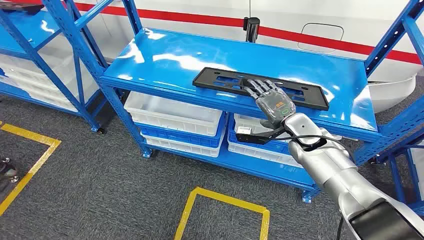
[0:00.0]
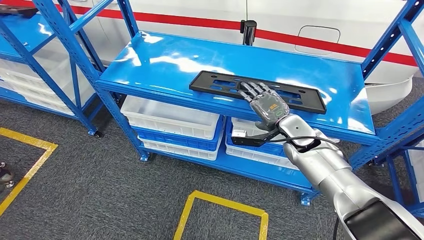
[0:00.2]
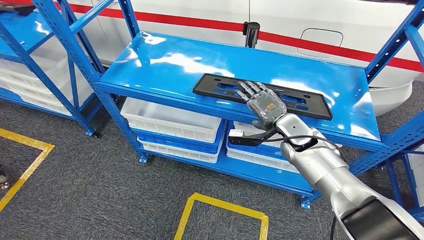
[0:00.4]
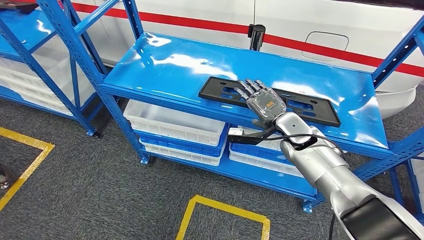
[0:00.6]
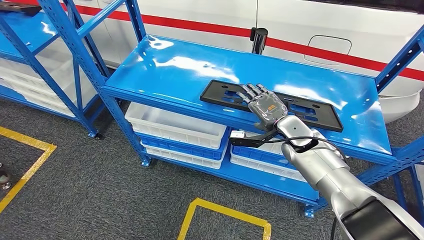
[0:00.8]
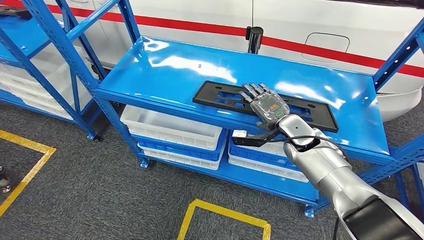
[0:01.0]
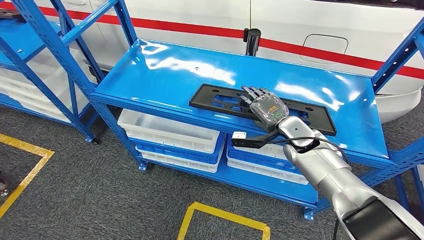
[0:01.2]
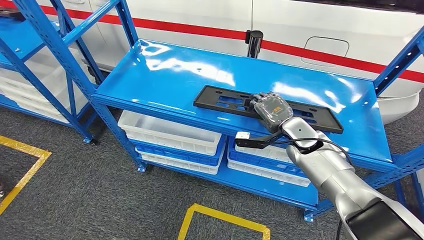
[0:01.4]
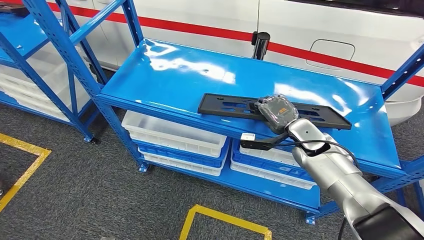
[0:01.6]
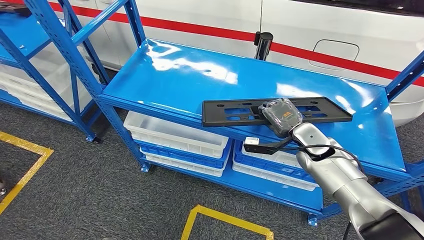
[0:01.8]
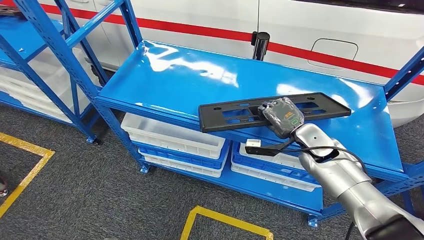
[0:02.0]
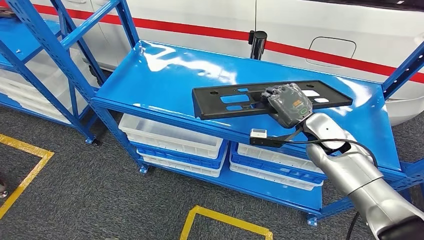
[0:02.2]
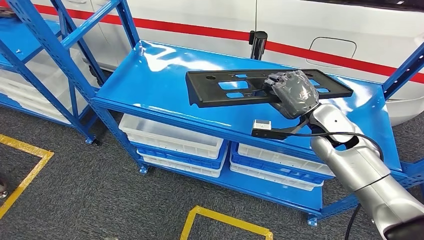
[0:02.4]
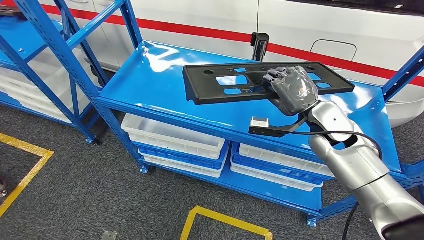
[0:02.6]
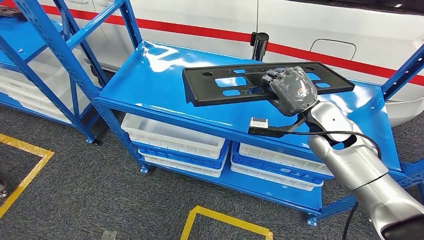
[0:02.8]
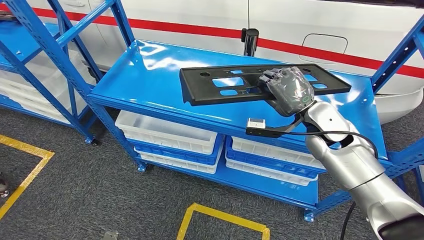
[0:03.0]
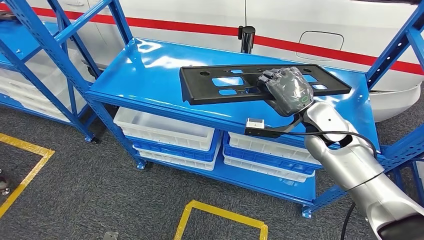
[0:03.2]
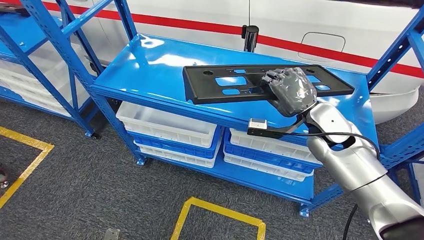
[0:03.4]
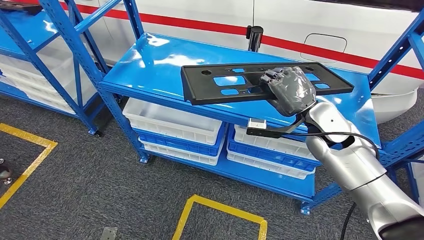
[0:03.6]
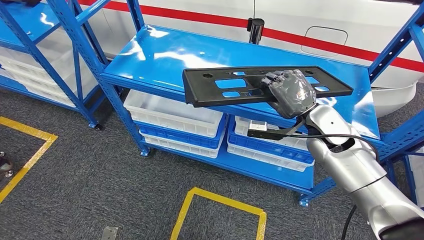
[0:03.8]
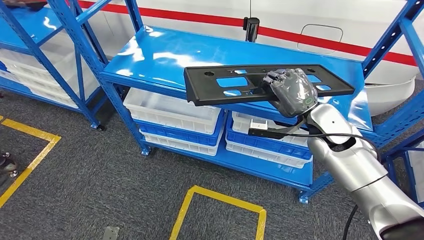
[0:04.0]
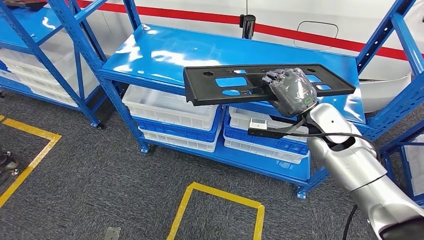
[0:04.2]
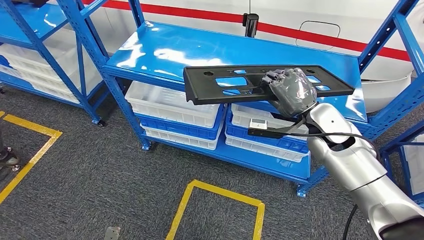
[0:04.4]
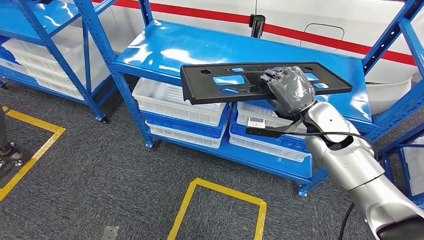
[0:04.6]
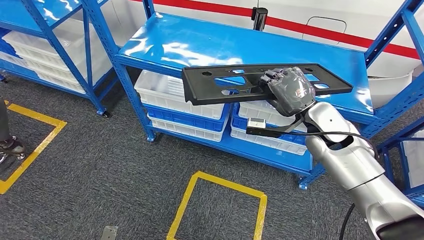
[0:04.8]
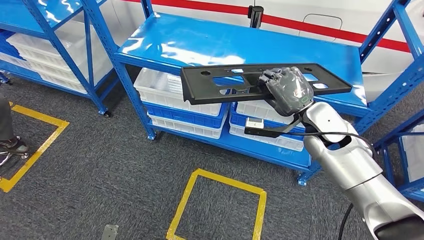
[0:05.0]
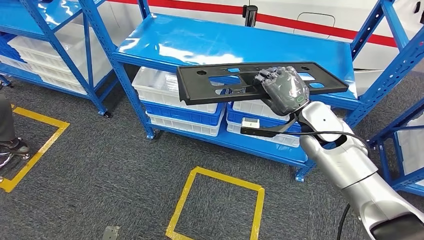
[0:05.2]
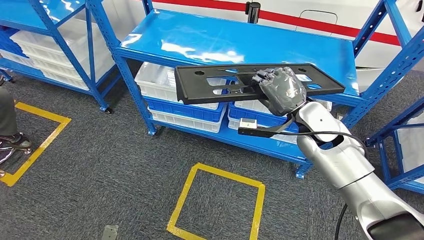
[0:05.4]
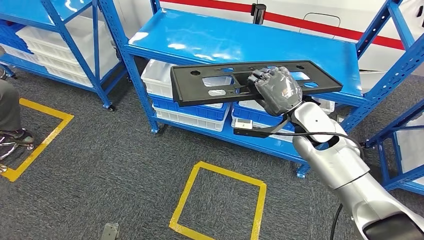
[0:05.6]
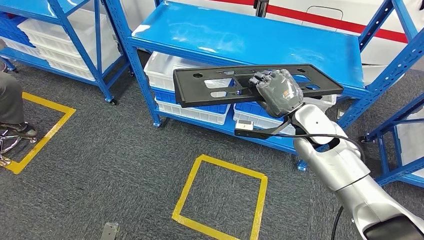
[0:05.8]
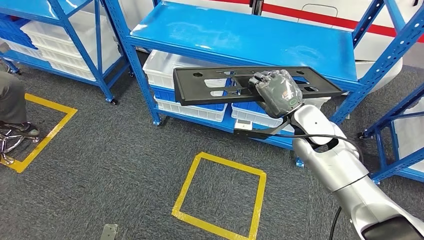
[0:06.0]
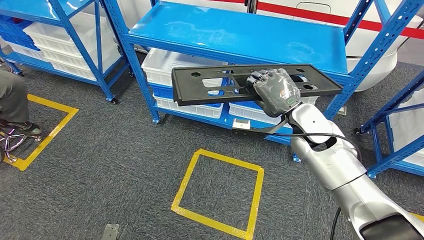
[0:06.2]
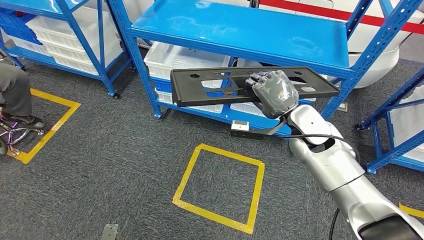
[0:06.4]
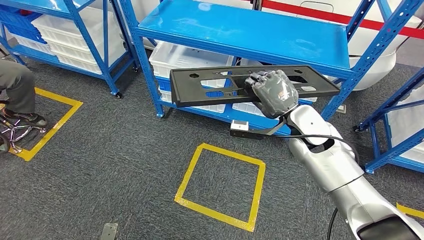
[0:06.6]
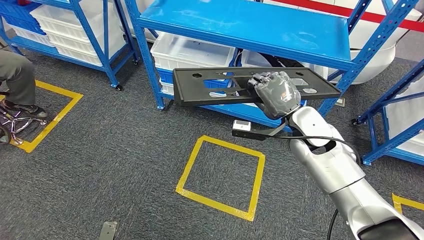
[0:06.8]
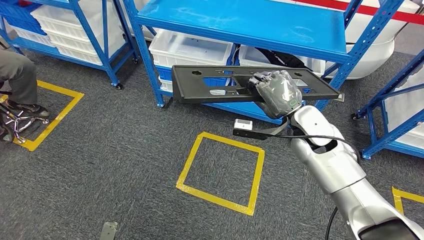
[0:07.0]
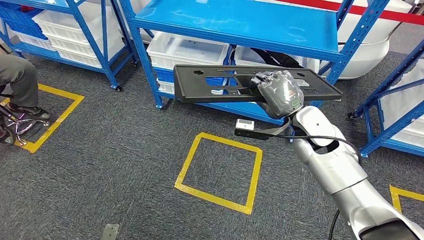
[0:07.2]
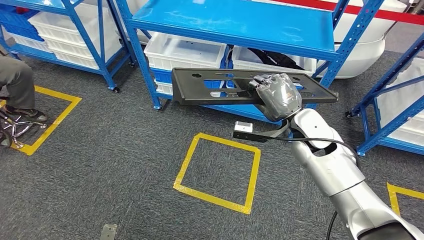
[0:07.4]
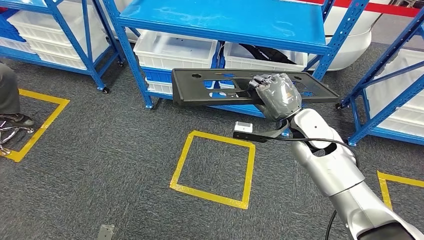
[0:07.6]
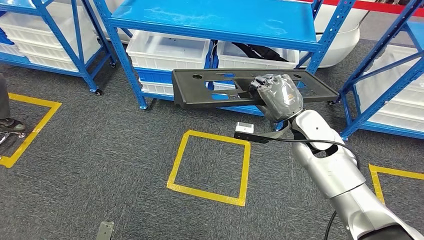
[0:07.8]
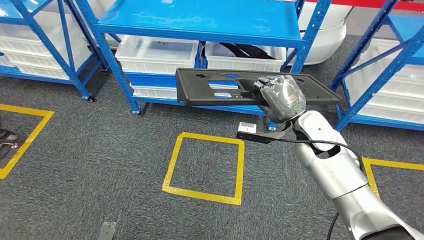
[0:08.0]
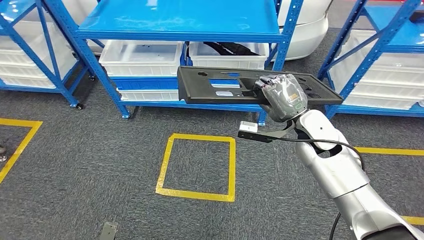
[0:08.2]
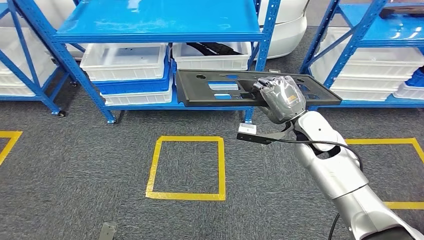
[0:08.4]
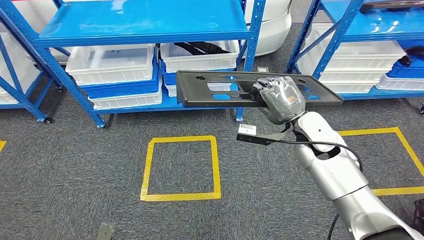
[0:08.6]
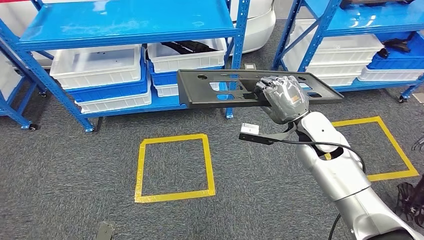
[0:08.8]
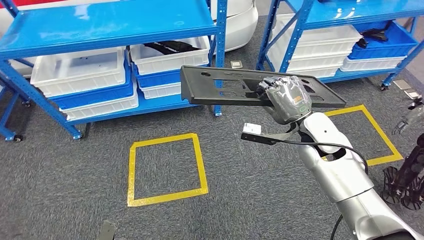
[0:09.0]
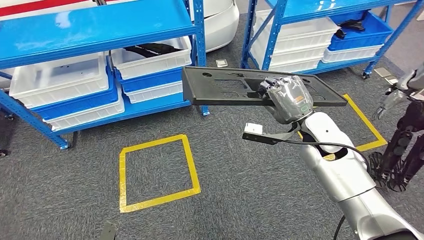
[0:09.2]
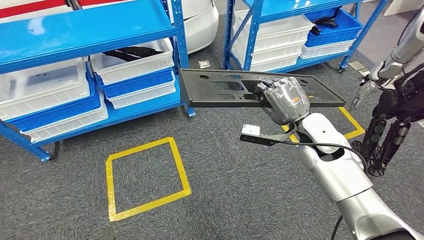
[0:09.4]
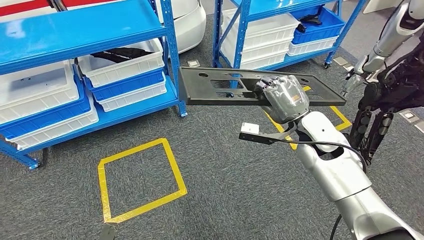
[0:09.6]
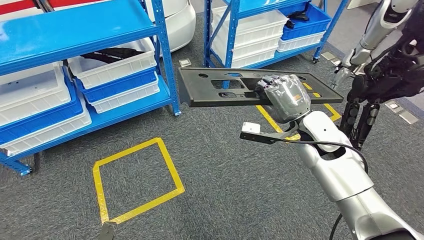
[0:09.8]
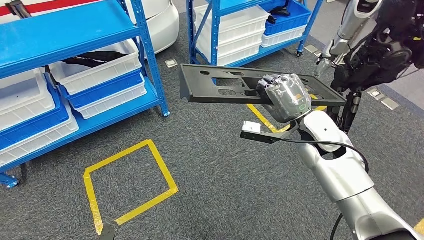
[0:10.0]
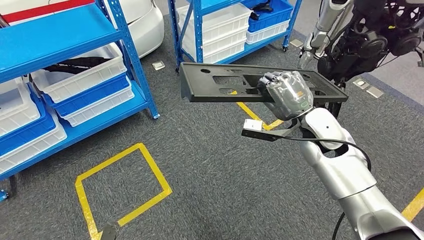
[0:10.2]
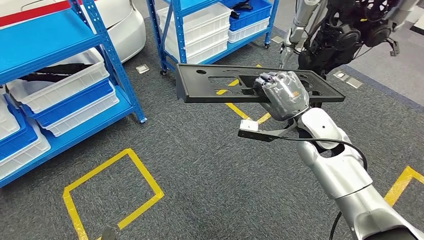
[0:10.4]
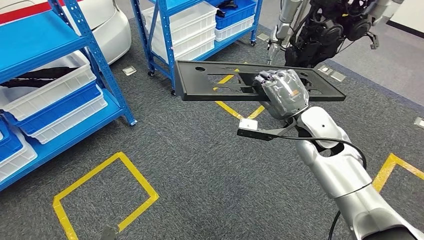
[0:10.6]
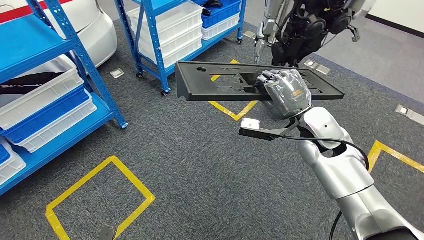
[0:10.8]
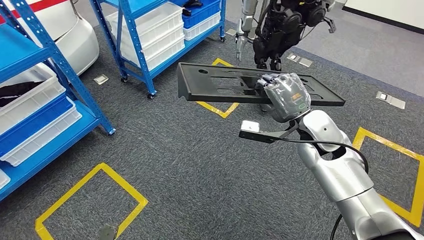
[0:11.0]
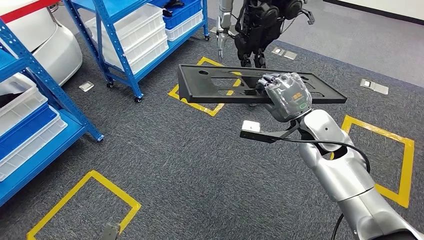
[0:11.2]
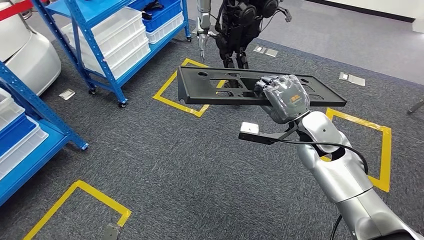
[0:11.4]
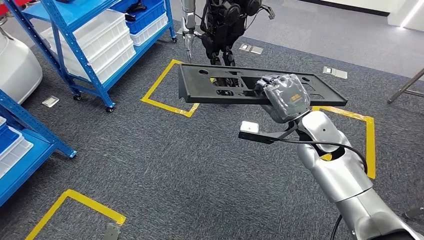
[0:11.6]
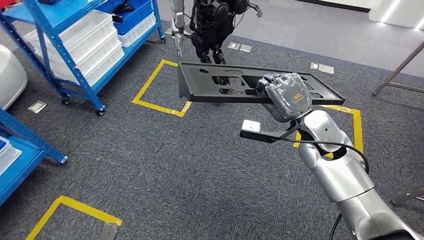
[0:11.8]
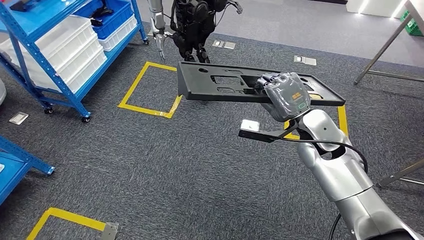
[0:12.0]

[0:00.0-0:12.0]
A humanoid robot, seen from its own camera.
Step, 0:00.0 to 0:08.4: Pick up the large material from the shelf.

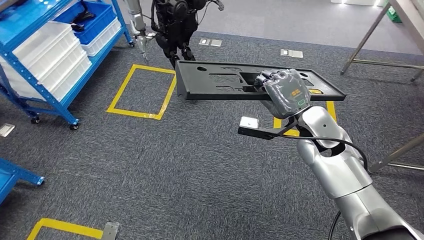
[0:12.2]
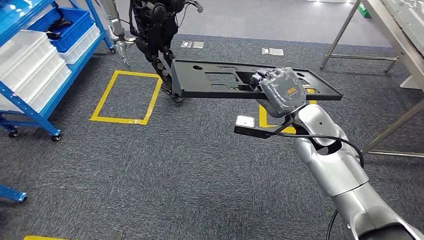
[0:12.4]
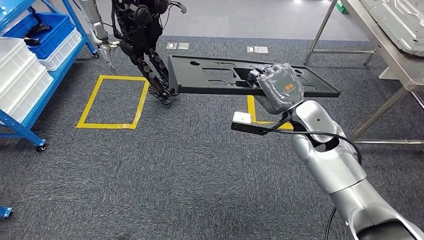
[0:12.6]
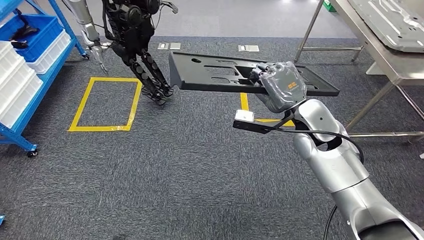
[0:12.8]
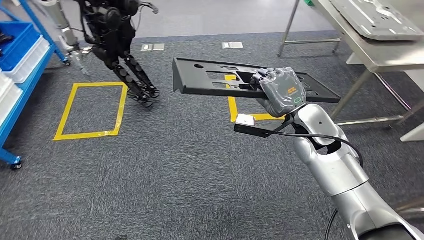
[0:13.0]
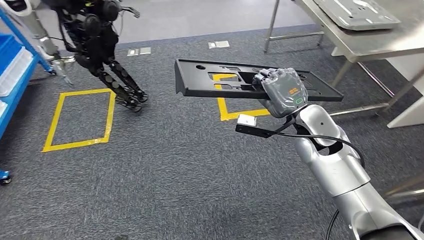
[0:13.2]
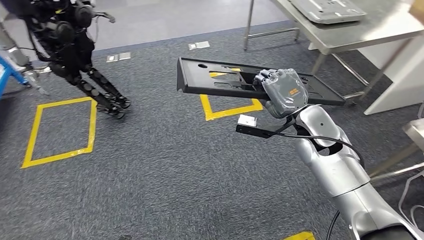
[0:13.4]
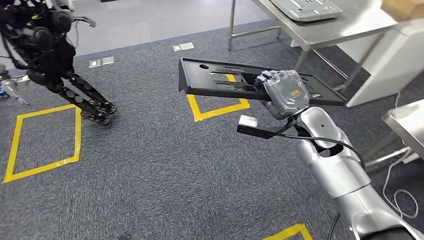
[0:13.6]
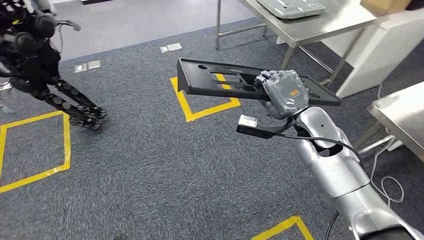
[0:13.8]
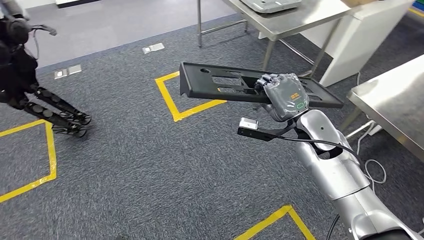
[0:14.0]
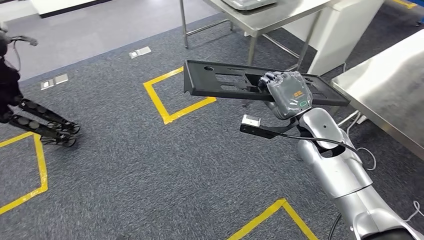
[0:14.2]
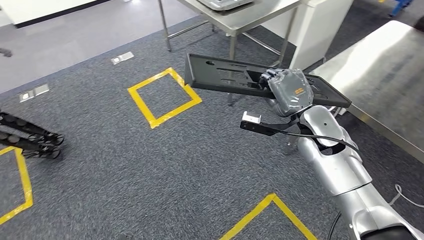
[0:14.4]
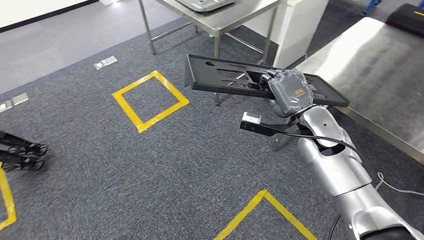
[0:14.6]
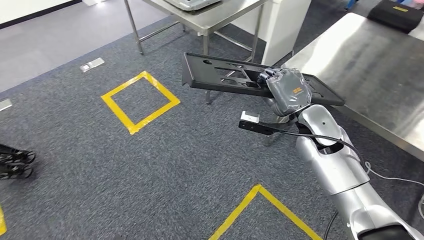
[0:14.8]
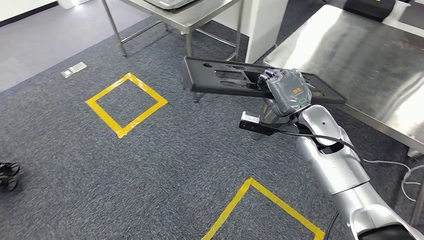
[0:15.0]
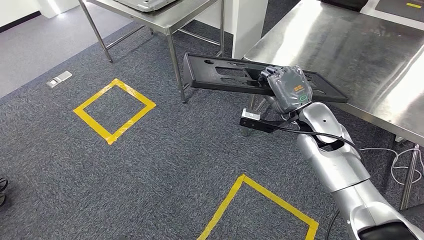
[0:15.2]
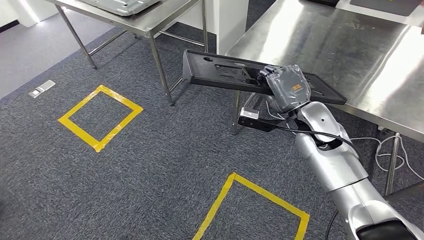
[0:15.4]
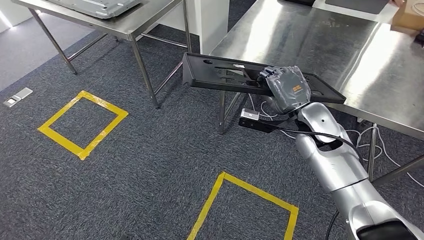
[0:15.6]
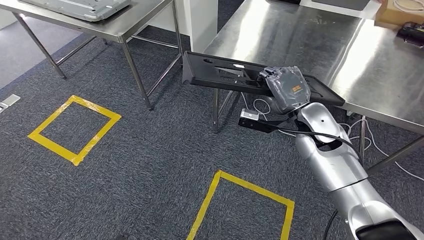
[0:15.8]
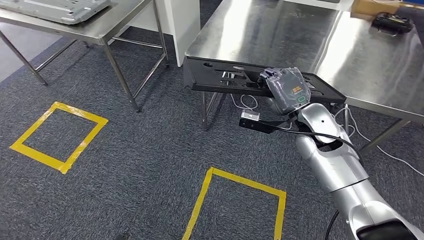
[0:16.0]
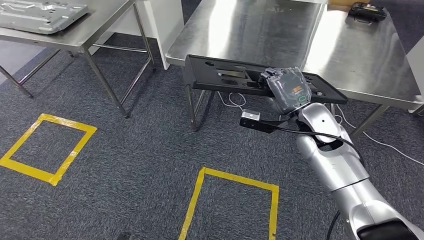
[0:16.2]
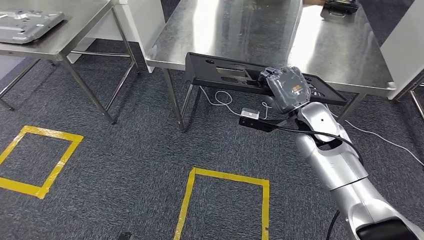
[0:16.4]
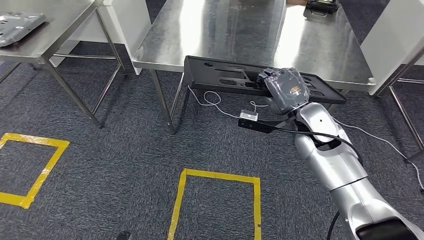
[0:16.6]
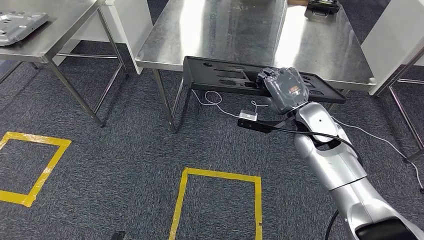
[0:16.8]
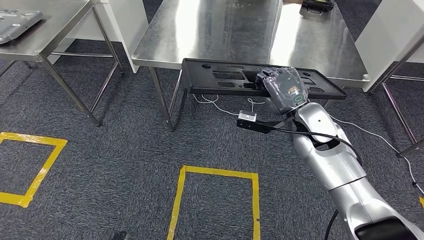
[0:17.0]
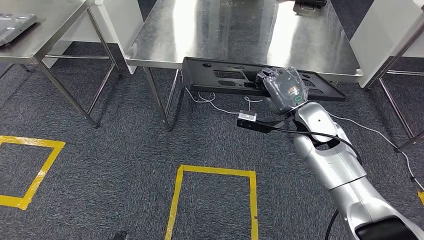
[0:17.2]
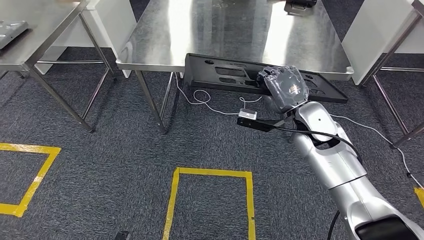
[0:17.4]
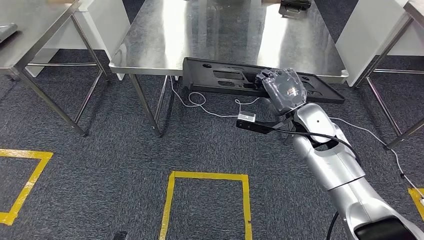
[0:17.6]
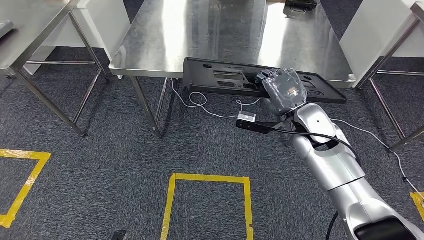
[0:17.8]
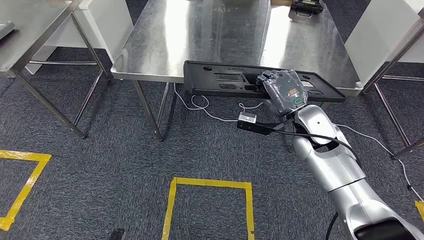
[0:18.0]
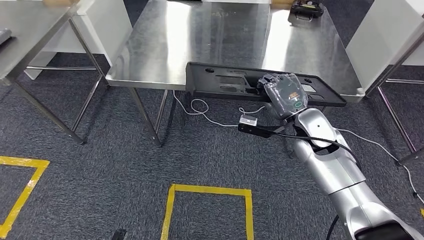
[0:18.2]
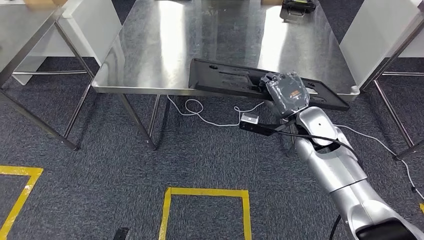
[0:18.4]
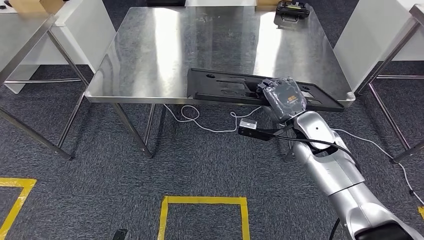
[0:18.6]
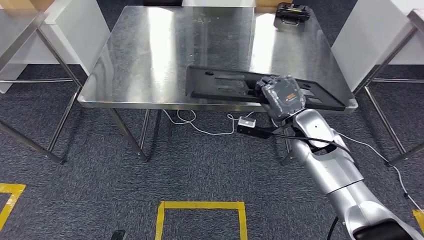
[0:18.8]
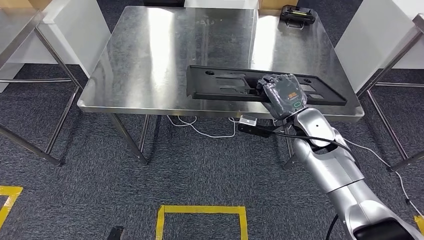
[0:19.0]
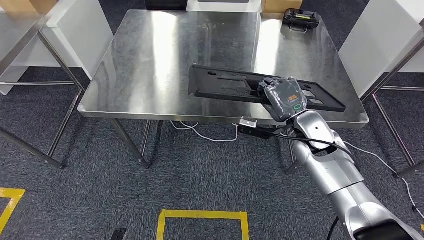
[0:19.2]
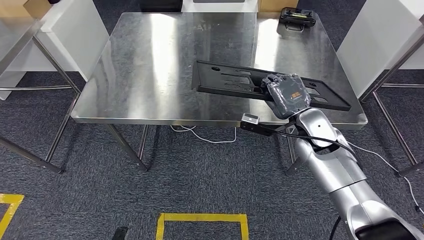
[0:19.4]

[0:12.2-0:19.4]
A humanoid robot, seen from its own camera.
Step, 0:12.2 to 0:15.0: Move the large material to the front of the workbench.
